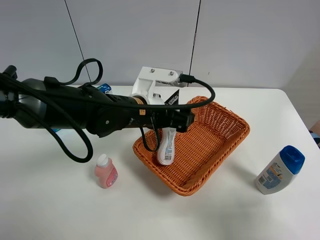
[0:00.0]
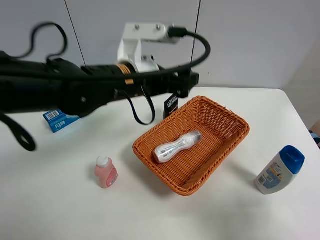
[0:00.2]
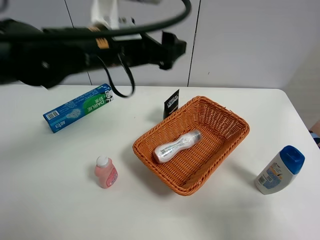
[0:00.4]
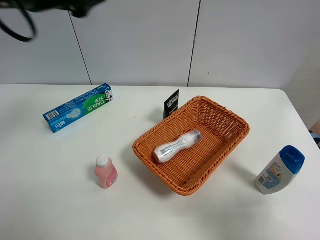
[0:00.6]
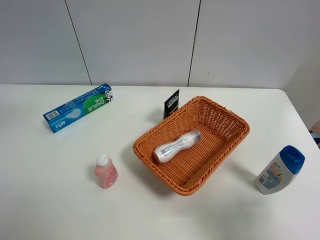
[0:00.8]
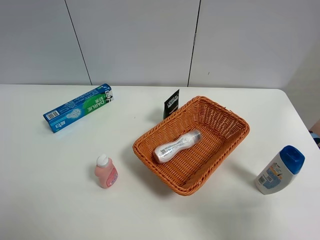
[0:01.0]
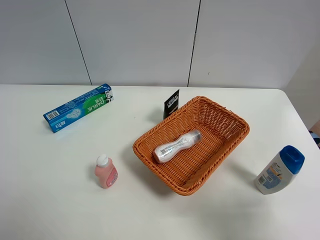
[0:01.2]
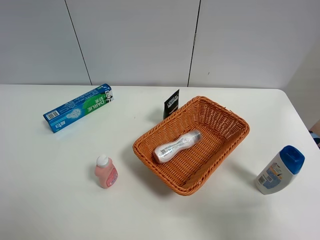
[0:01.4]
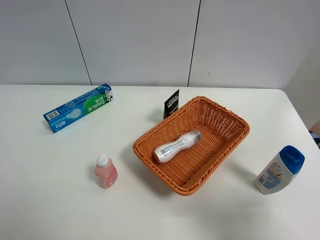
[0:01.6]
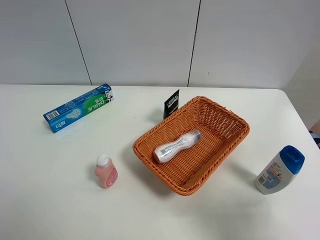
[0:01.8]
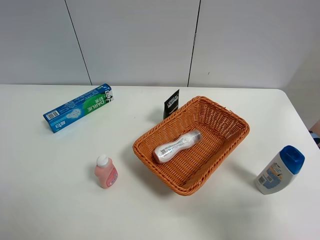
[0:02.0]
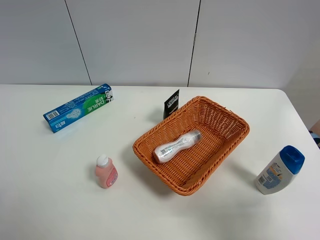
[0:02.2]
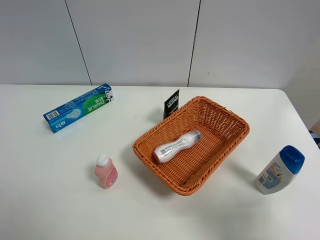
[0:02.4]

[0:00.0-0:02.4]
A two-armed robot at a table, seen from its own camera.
Task of the whole recording: Place the object closest to the toothpaste in the basket.
0:00.0 to 0:01.2: The left gripper heads to the left, upward and backward, covering approximately 40 cm.
